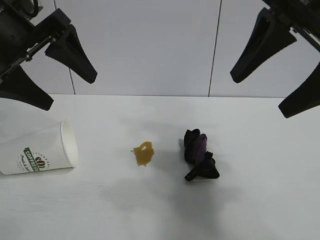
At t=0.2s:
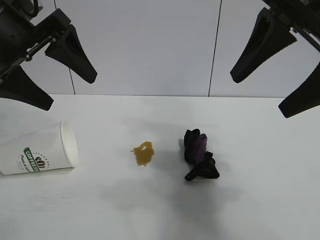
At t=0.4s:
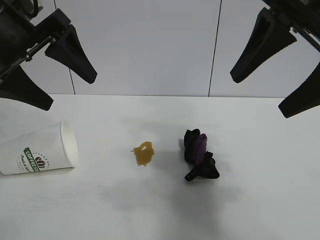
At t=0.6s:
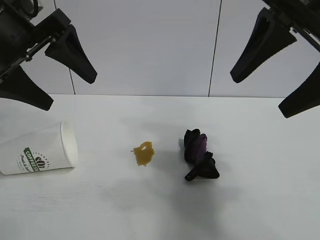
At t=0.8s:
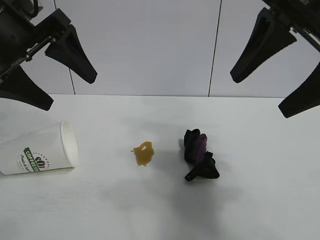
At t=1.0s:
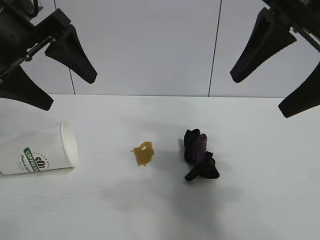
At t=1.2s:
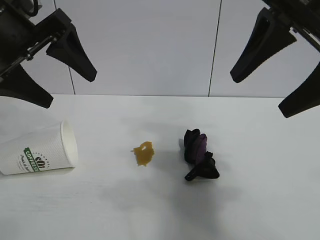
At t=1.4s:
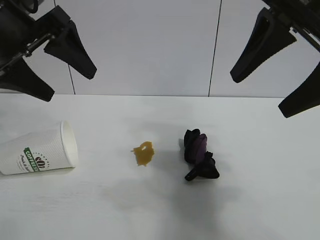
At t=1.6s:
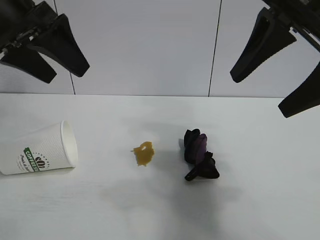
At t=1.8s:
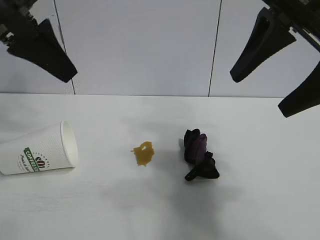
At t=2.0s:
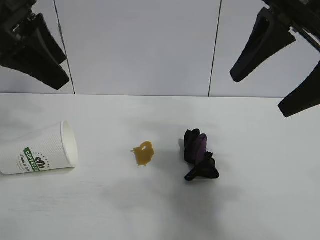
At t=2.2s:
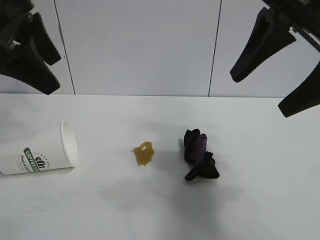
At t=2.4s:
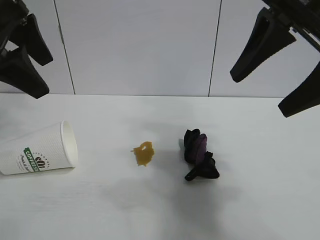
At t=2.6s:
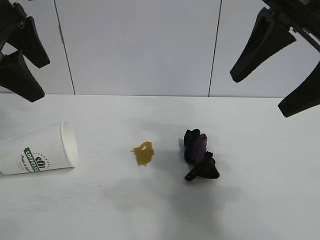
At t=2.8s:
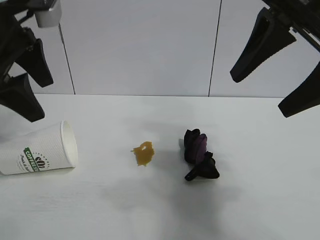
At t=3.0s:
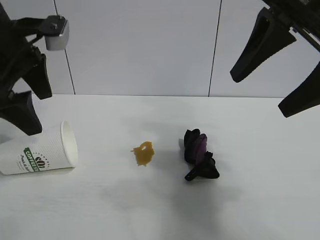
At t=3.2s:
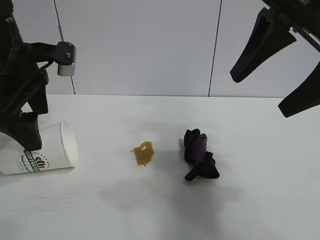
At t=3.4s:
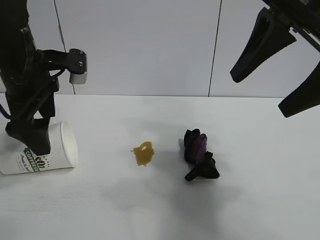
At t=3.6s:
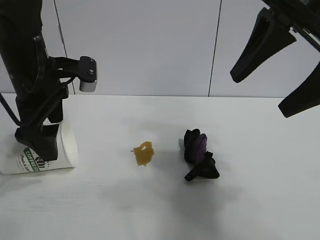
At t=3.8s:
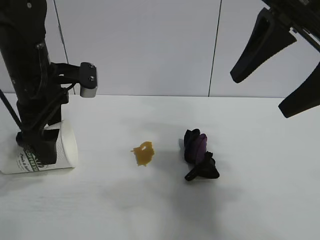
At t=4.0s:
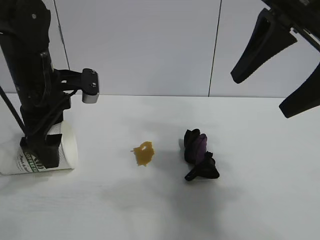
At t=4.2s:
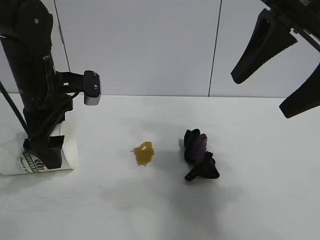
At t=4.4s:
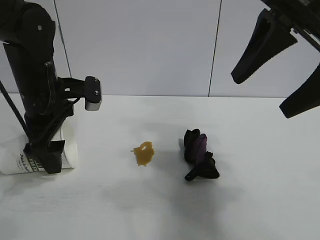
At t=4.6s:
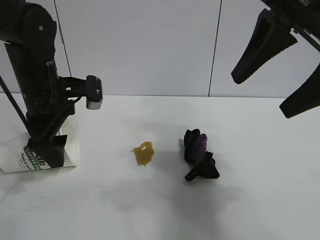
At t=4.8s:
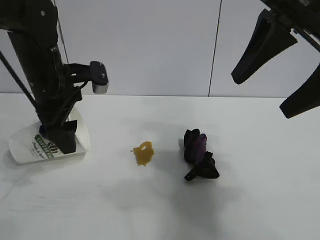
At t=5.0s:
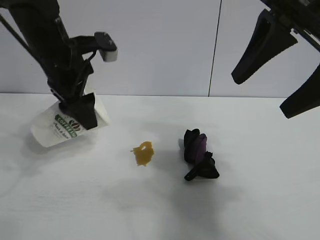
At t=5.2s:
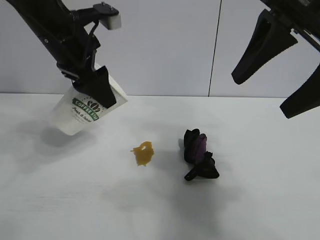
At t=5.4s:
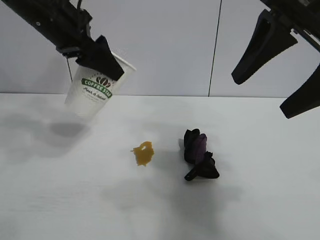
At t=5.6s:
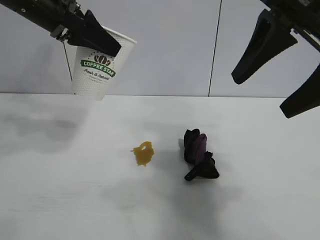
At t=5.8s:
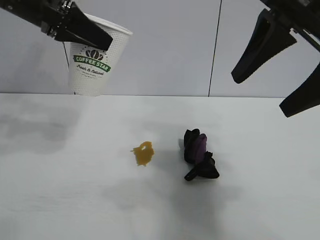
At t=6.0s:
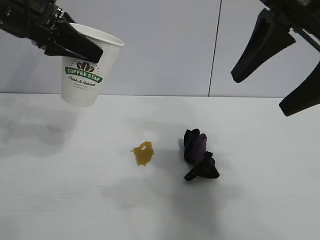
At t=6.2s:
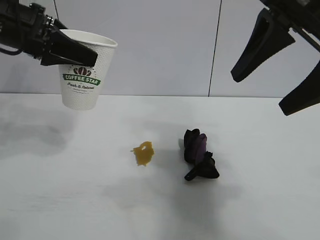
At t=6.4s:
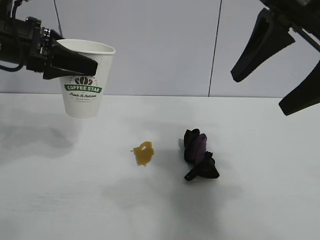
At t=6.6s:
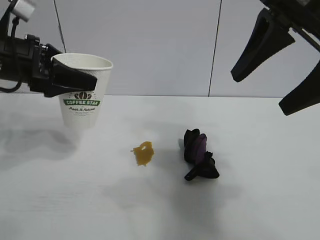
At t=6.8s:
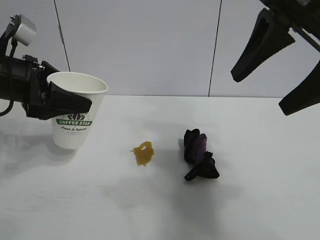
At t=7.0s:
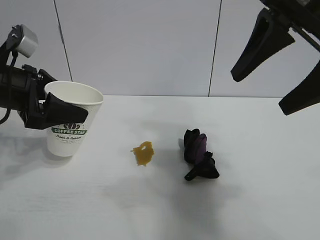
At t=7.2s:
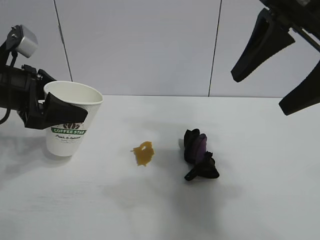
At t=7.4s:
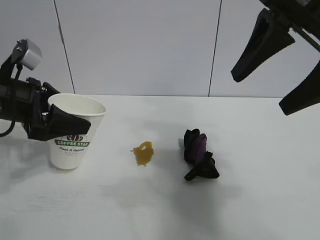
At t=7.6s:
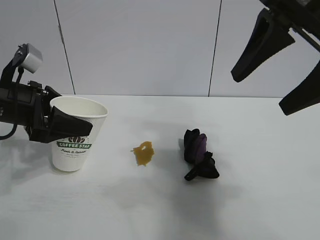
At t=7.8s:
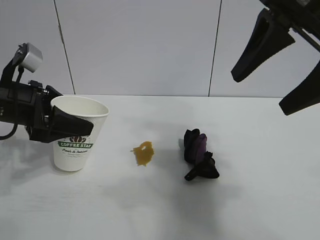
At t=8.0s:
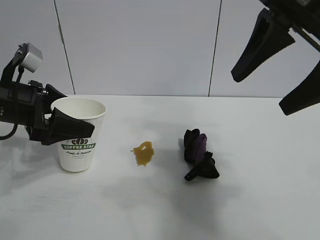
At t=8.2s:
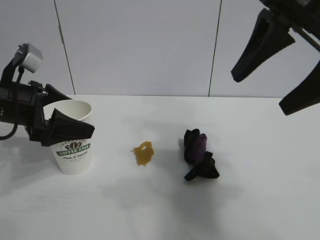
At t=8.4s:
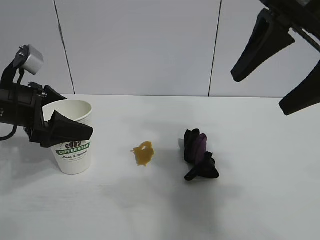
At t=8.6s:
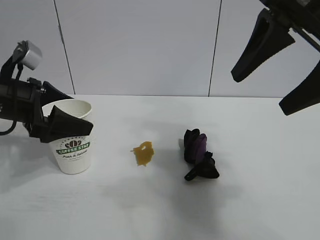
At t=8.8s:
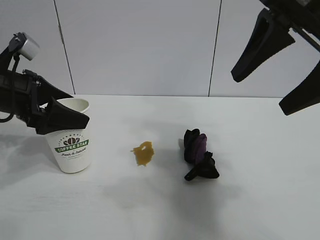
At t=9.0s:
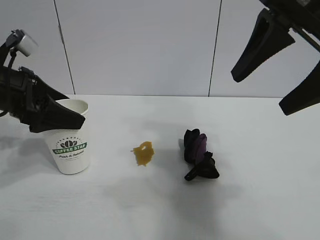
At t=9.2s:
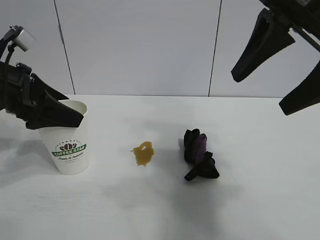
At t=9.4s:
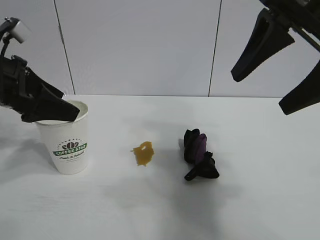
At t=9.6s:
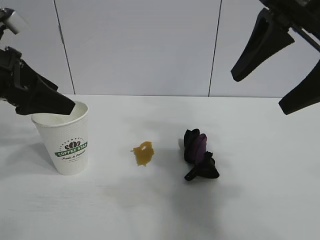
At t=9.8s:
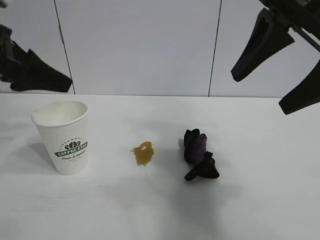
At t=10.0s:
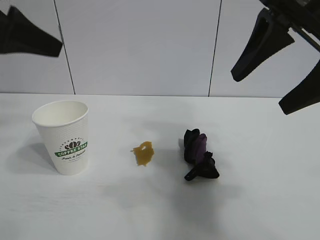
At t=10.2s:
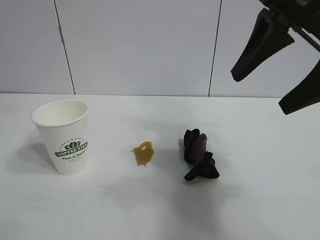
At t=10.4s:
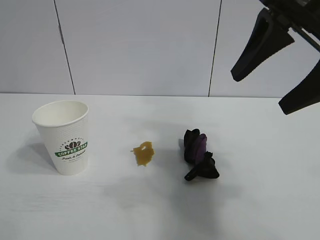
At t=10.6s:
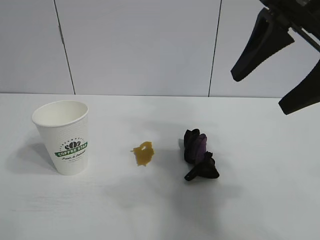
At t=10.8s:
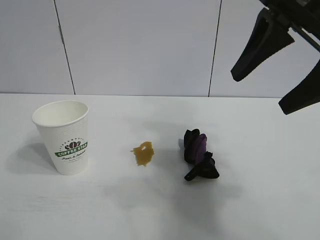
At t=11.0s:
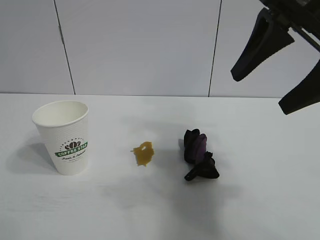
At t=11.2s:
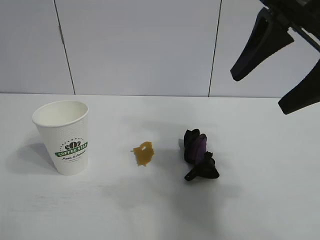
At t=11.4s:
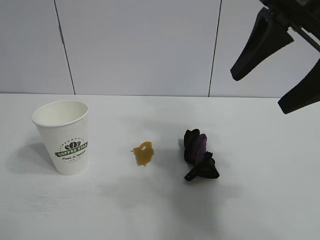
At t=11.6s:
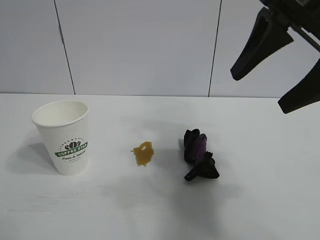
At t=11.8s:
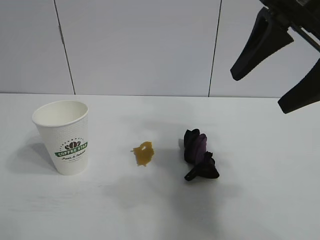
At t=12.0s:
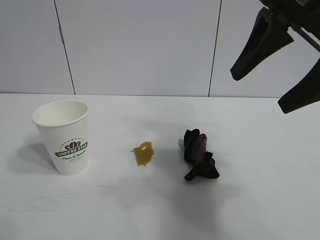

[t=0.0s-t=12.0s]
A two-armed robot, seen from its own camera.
Task of the whole recording: the left gripper pick up the fallen cup and place it upright, the right gripper grasp the black rag and wipe the stain on the table, the right gripper put the black rag back in its original position.
Step, t=1.2s to t=4.4s: Grasp the paper cup with left gripper.
Step, t=4.6s to t=9.0s: Stand the paper cup upright with left gripper.

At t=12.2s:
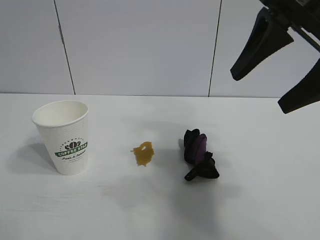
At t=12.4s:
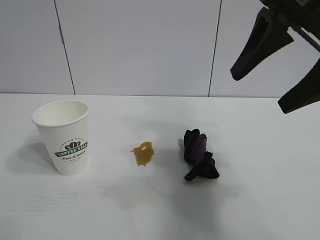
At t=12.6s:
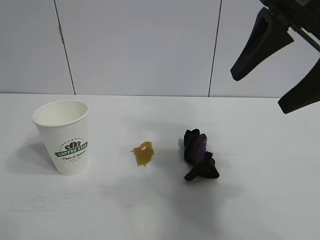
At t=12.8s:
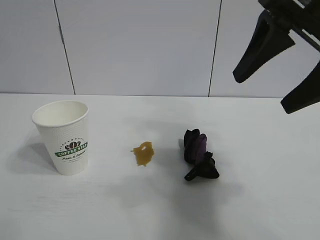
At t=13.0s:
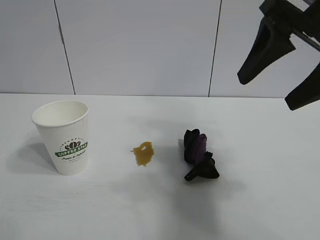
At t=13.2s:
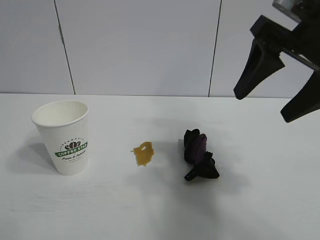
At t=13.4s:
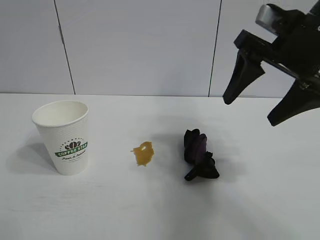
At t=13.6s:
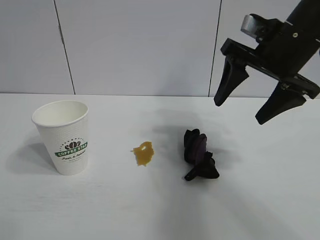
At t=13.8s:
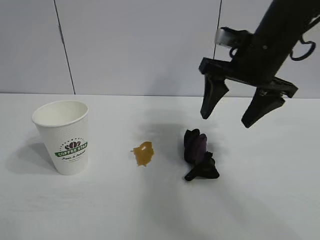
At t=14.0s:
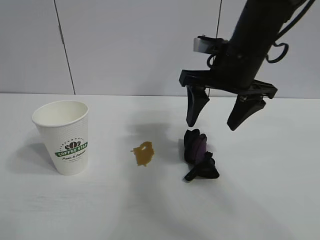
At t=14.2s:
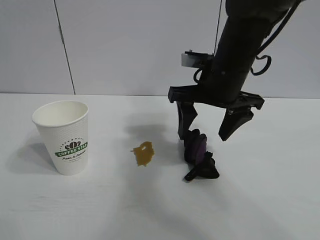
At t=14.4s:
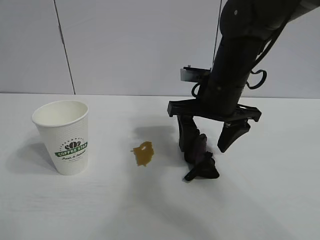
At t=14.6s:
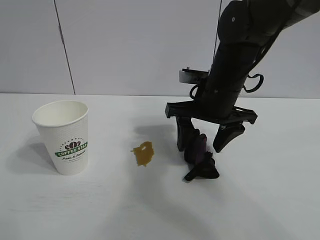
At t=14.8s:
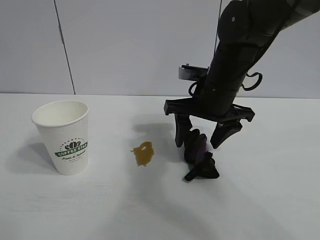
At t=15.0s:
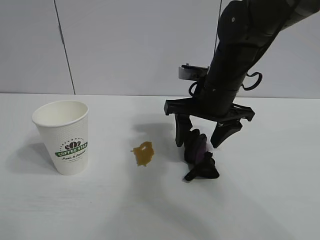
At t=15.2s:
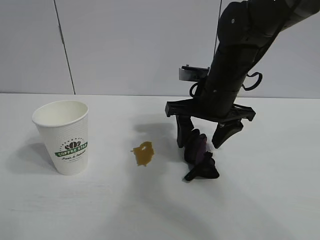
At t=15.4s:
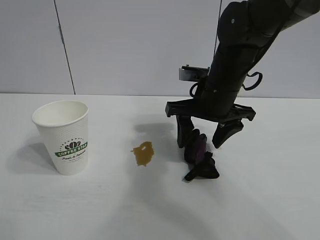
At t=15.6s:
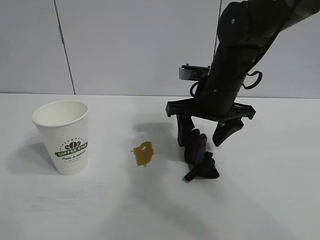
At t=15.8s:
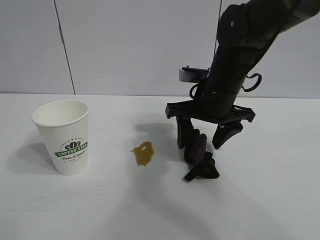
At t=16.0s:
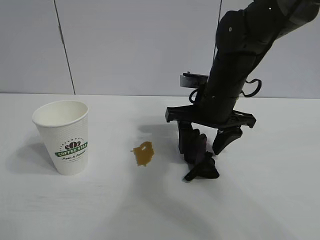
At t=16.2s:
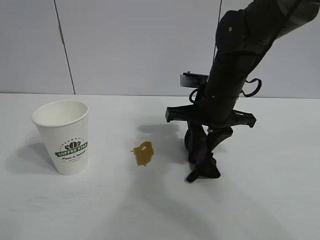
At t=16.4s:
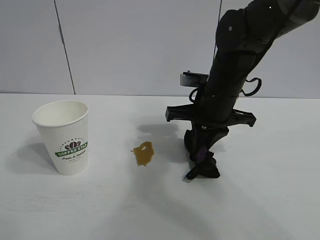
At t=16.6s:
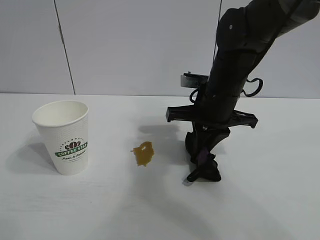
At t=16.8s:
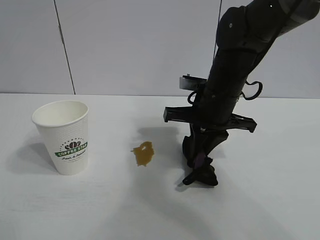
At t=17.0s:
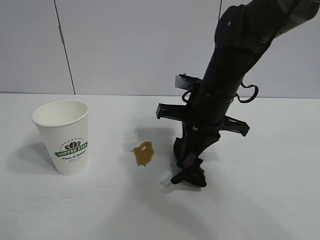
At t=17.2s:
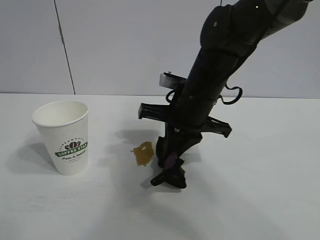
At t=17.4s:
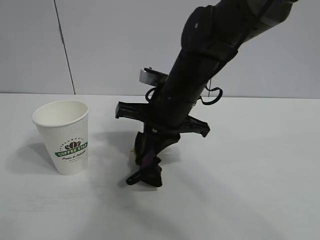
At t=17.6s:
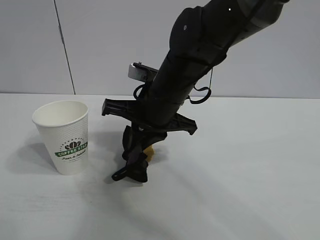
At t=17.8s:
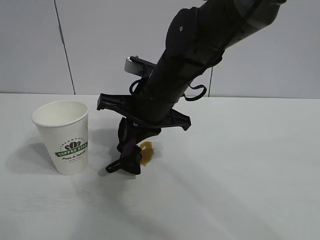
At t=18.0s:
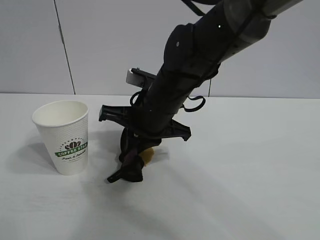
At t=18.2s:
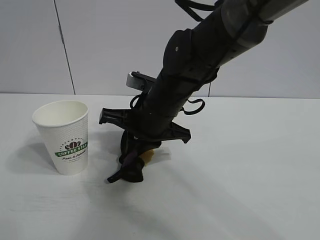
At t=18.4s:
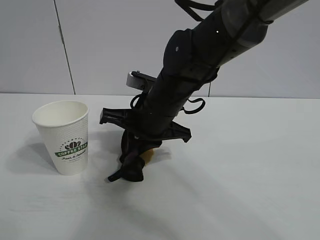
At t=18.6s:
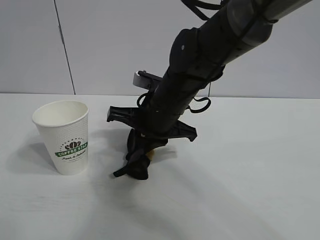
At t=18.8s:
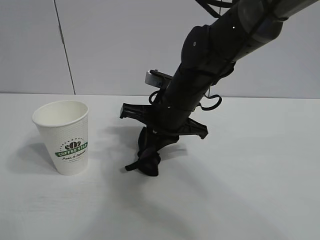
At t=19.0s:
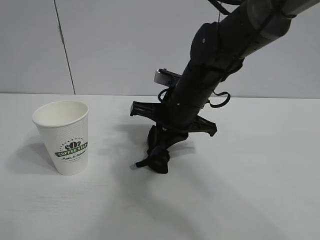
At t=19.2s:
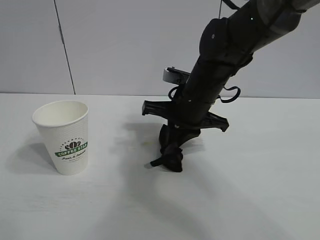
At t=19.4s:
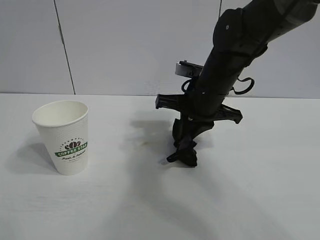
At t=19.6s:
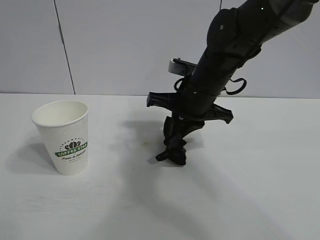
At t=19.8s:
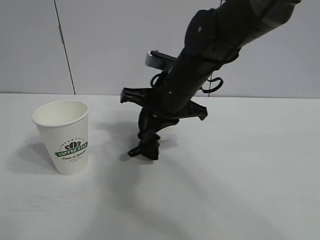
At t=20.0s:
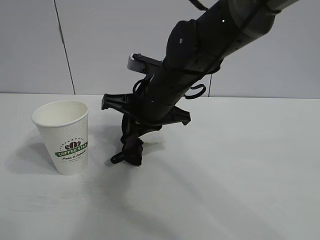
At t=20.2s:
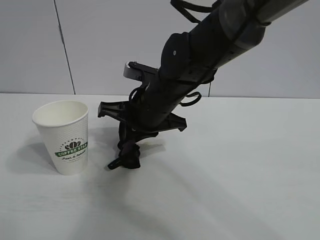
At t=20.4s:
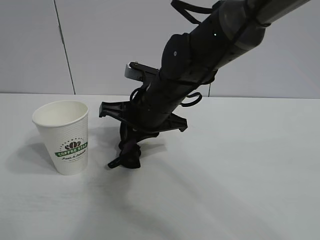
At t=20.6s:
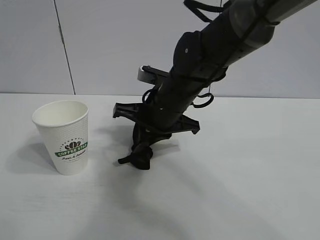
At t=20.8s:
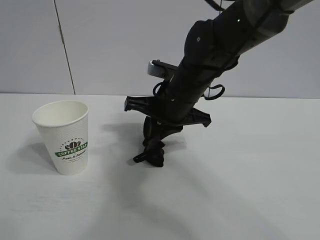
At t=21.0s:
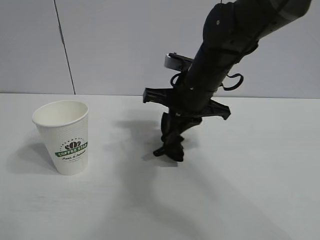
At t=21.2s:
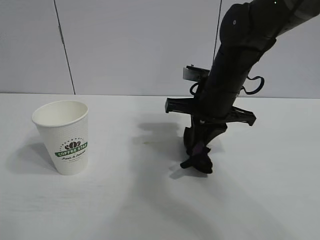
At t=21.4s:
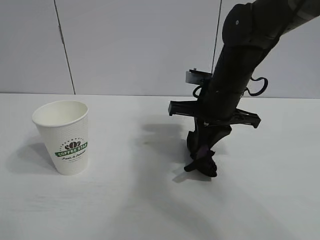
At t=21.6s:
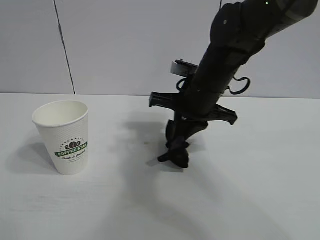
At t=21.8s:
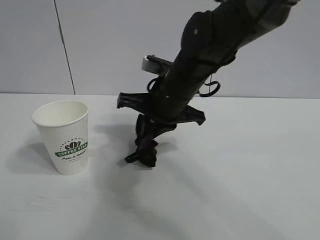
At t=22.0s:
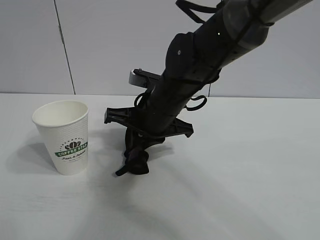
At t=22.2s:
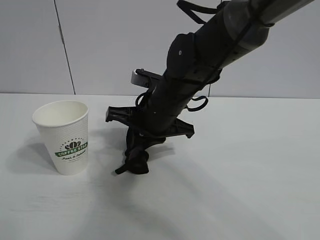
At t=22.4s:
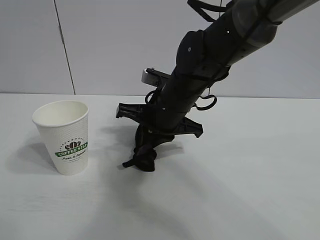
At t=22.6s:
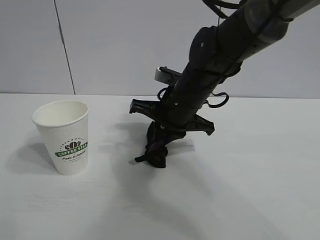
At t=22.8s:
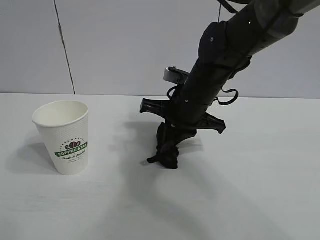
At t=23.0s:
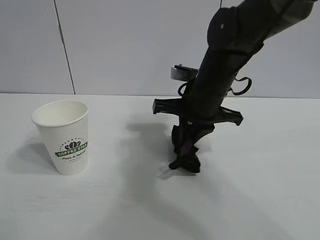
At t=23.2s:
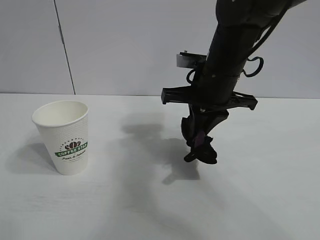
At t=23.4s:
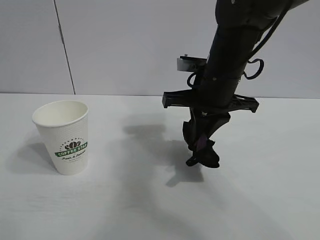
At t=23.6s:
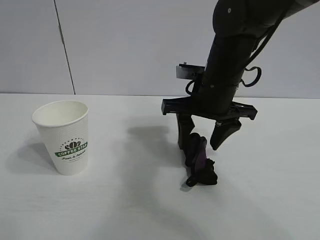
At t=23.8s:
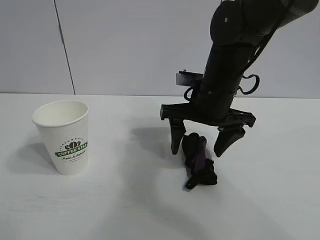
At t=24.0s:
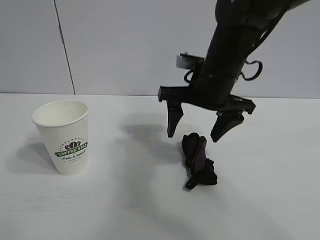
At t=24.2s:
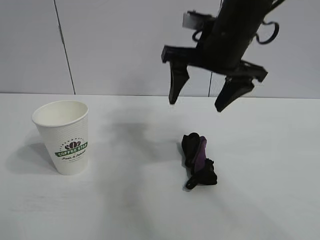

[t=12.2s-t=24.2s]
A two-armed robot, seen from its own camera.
Task of the whole recording: the left gripper pick up the fallen cup and place it upright, the right gripper grasp the black rag and wipe the stain on the table, the right gripper put the black rag back in its original position.
Step, t=12.2s to t=16.4s: Grasp the rag with right gripper.
Step, t=16.6s to t=22.6s: Wipe the stains off the table with the rag with right gripper.
Step, t=22.8s to t=23.6s: Place the rag on the table with right gripper.
